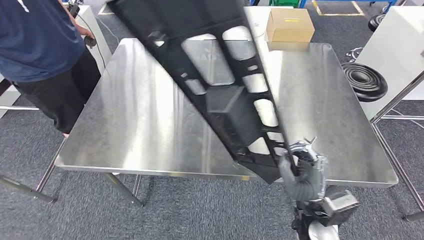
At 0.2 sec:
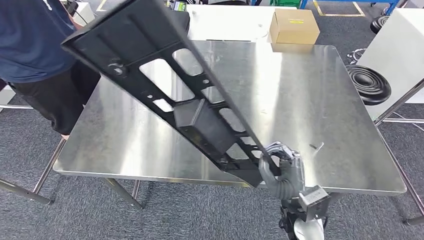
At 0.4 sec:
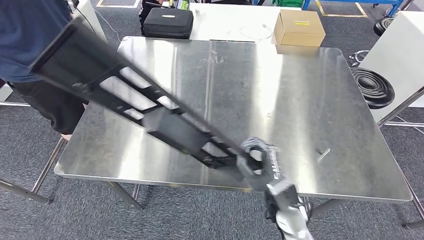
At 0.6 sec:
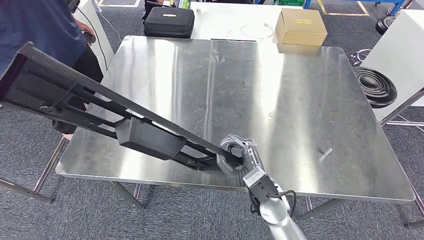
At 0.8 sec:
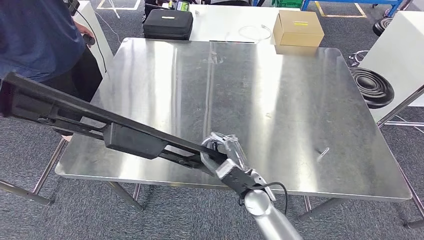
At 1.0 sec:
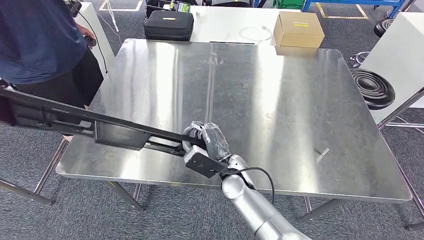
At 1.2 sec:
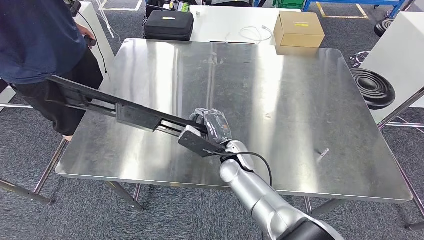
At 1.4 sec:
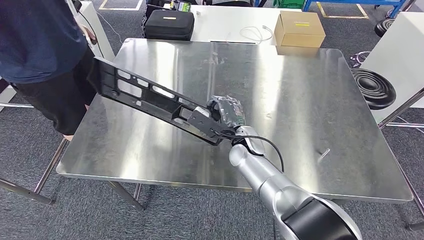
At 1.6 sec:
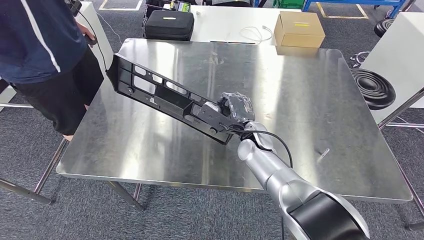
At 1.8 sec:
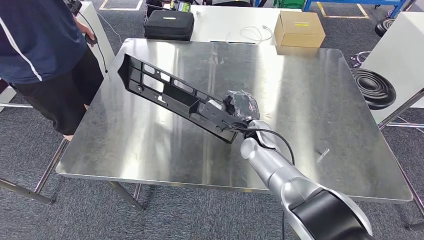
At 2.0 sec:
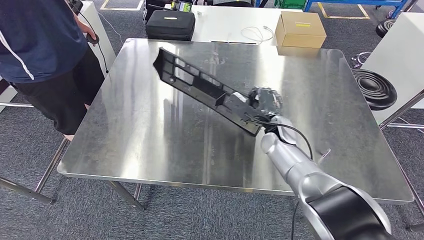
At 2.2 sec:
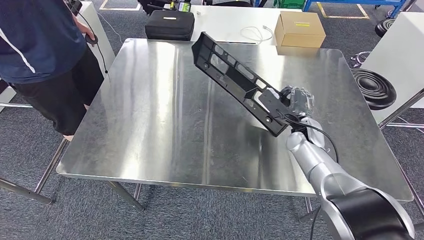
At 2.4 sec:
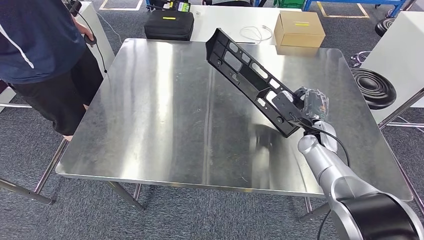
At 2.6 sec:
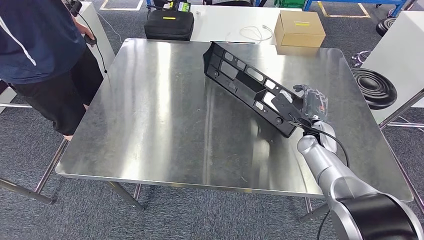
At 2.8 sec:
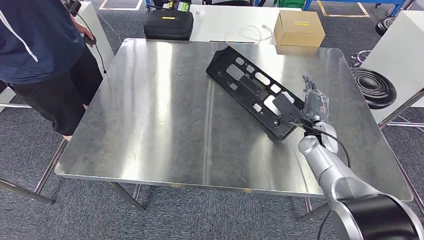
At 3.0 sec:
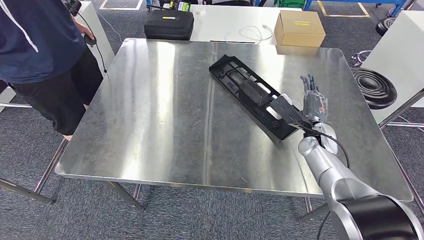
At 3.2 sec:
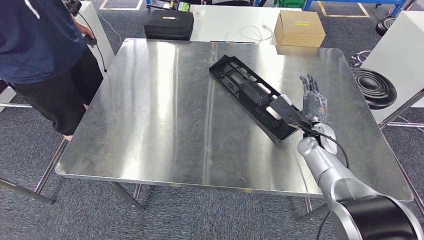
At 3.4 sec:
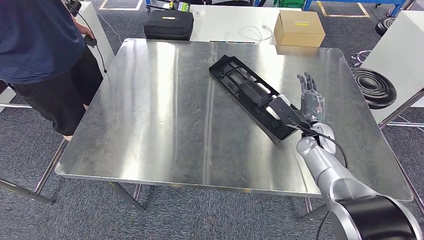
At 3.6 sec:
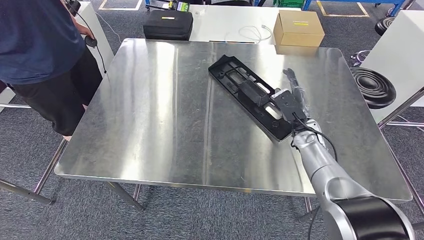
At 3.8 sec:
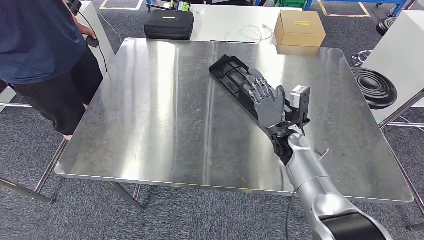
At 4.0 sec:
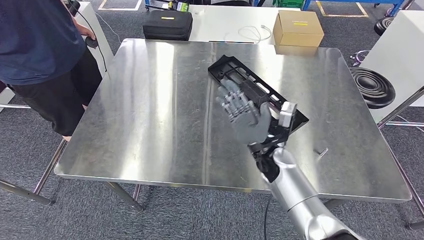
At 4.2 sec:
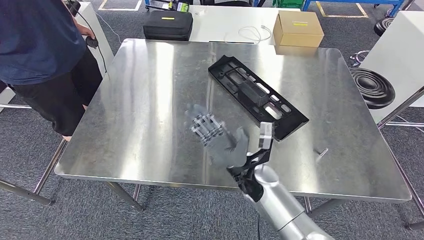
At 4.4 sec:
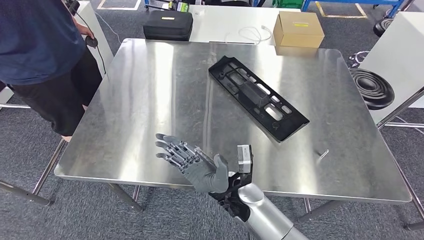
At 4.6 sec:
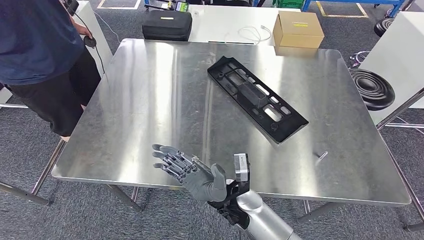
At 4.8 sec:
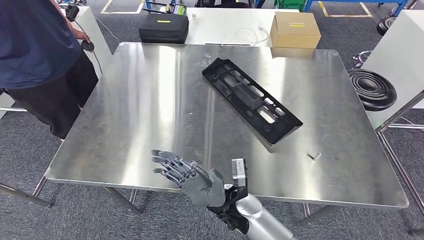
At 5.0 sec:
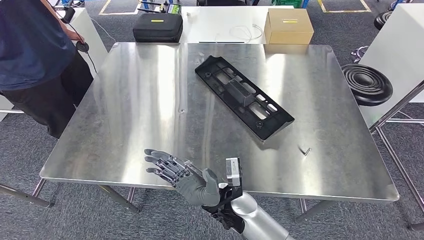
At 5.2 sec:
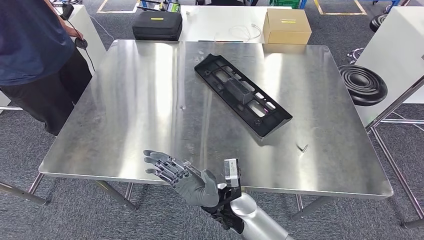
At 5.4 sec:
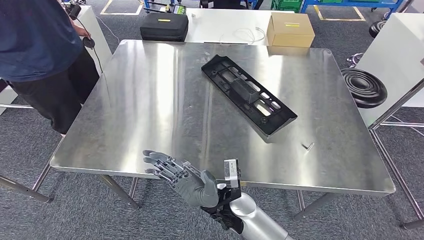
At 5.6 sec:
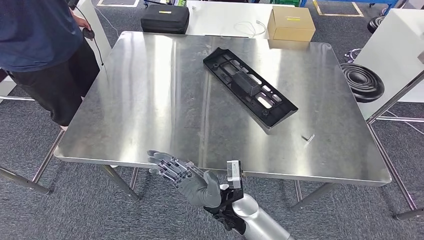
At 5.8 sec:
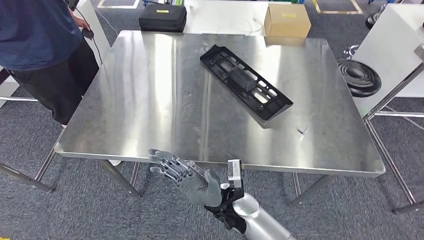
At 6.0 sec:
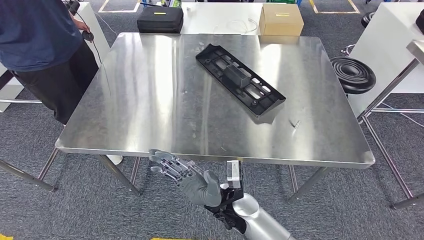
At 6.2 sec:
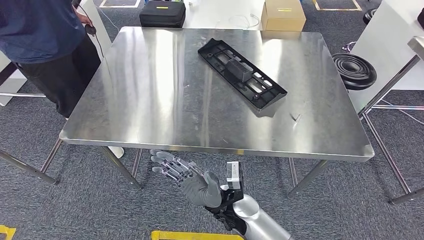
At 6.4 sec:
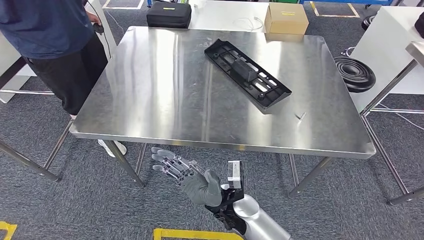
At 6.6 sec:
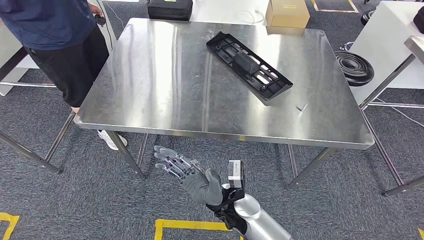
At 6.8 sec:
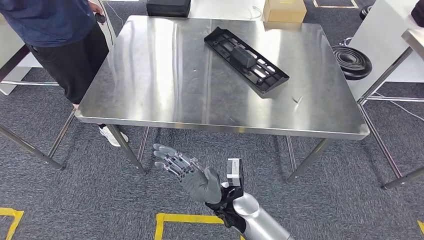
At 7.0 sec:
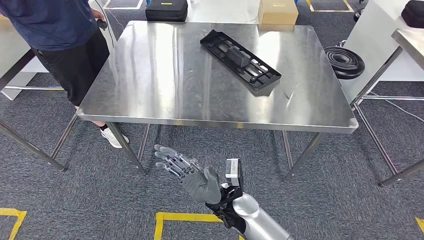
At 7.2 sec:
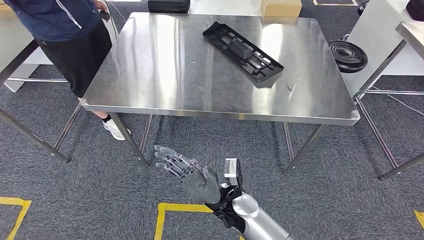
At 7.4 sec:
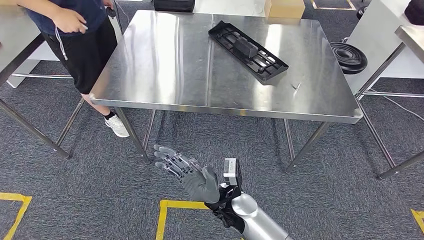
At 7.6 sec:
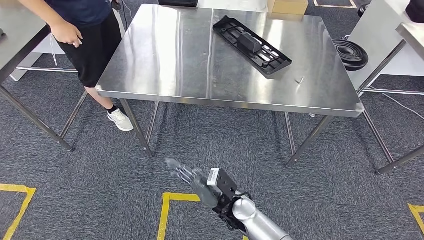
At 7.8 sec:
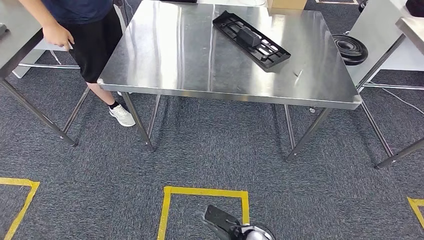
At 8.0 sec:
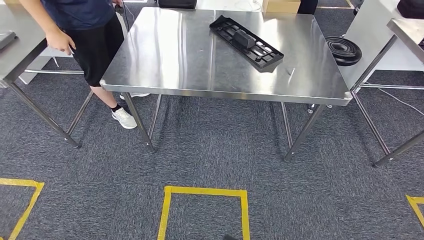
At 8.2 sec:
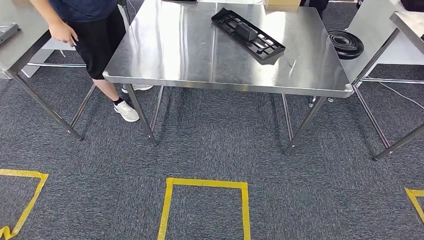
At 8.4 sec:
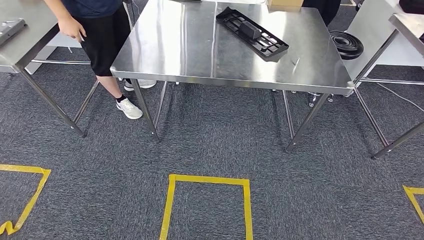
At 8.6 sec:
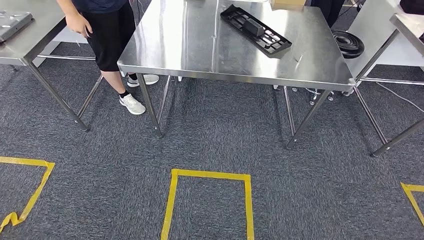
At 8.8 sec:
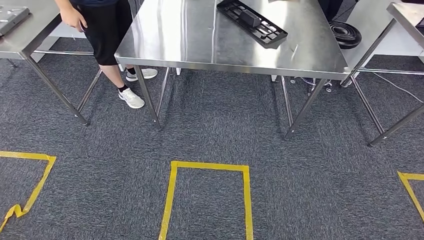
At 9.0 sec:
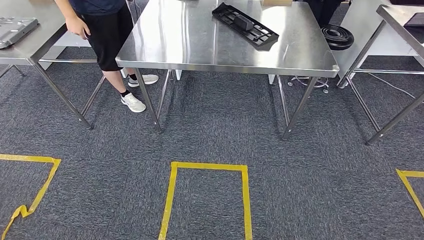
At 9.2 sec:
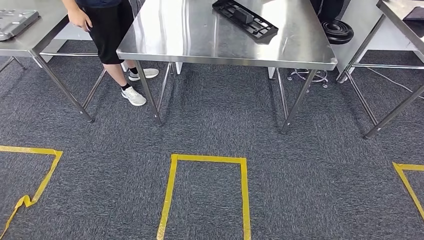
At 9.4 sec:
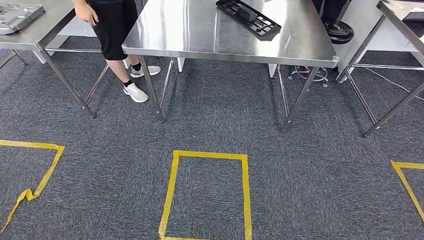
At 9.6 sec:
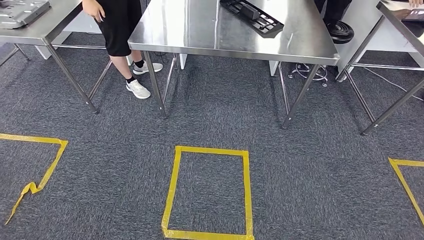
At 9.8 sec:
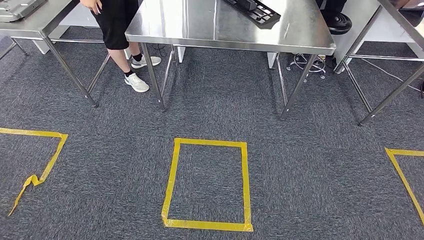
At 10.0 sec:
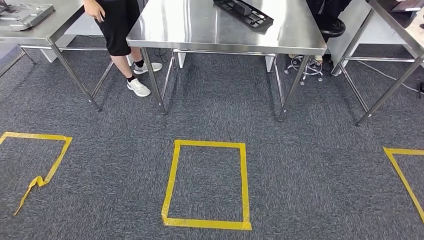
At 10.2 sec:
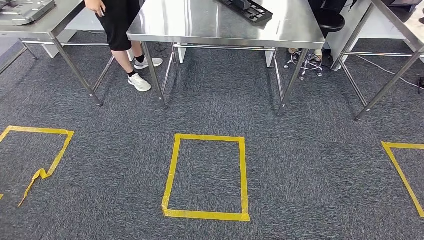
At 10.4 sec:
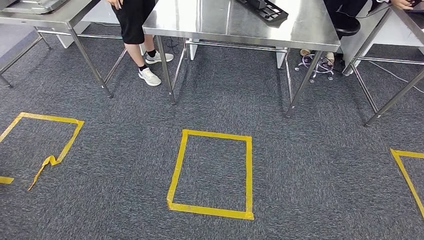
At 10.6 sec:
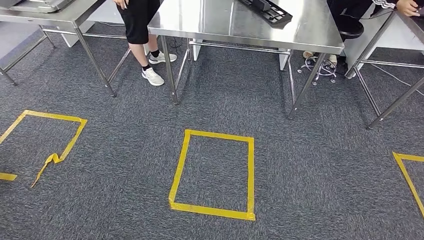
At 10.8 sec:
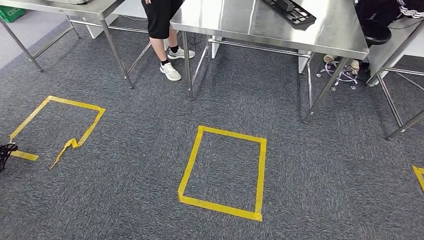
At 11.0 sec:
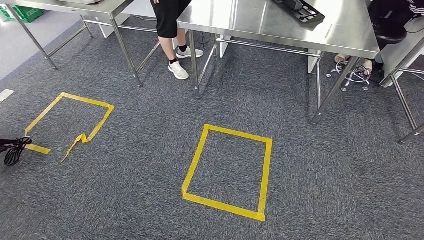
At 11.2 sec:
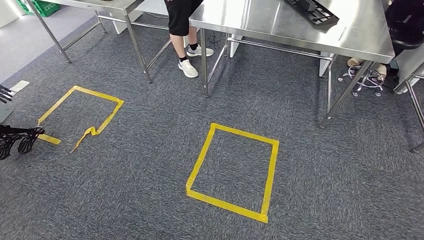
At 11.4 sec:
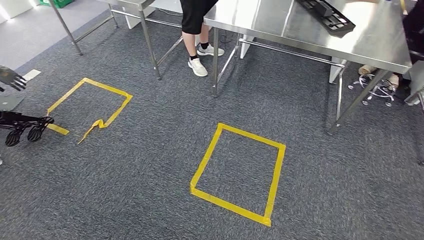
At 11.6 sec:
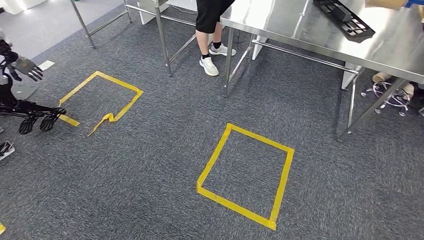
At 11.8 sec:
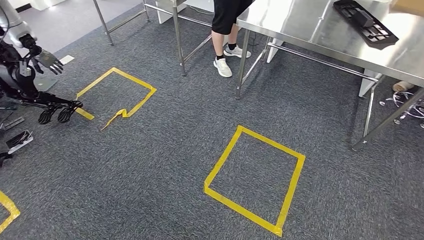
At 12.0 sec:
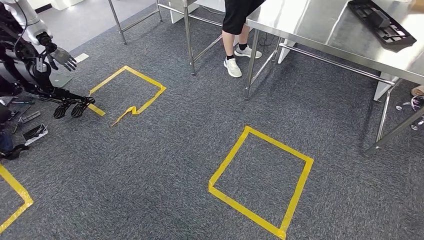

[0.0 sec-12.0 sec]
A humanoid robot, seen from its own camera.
Step, 0.0 sec to 8.6 sec: Insert the large material into the corresponding slot on the workbench.
3.0 sec to 4.4 sec: The right hand goes approximately 30 cm to the left and backward.

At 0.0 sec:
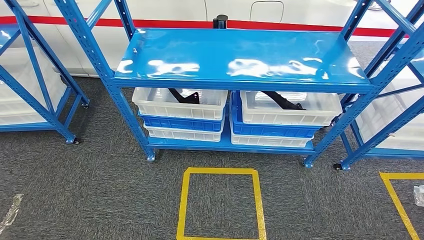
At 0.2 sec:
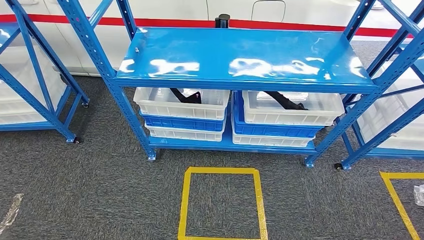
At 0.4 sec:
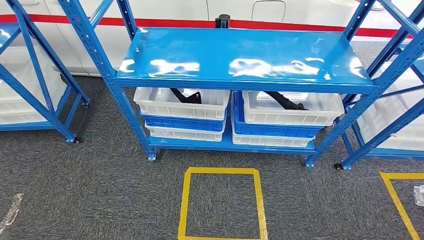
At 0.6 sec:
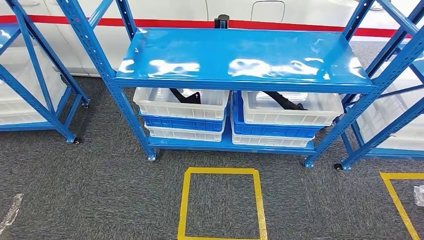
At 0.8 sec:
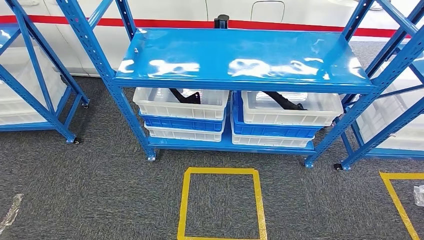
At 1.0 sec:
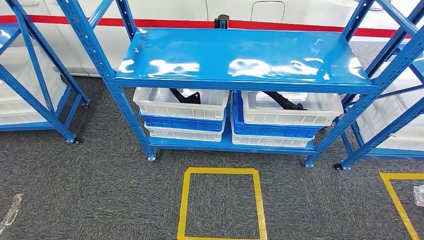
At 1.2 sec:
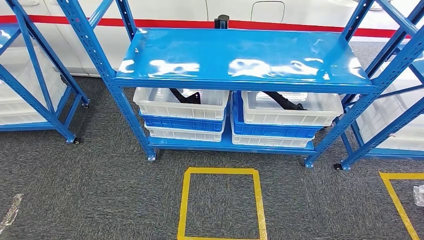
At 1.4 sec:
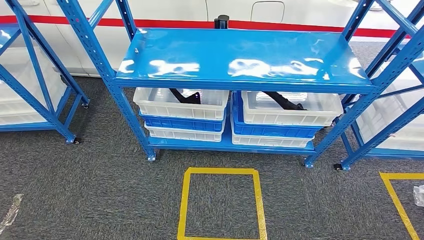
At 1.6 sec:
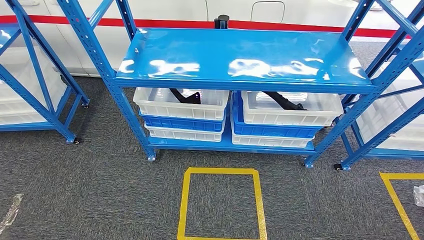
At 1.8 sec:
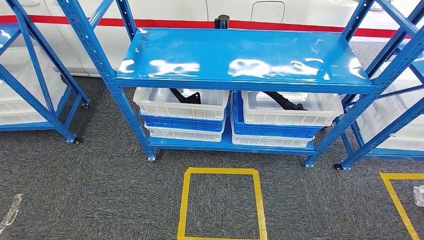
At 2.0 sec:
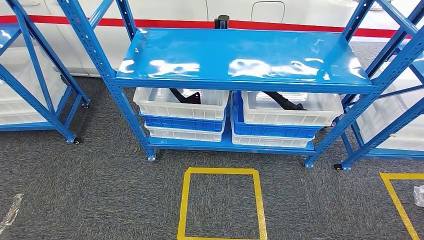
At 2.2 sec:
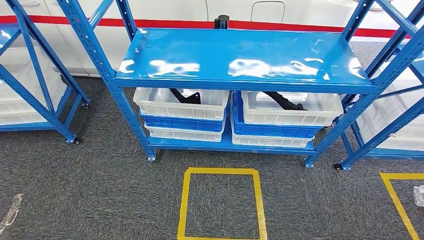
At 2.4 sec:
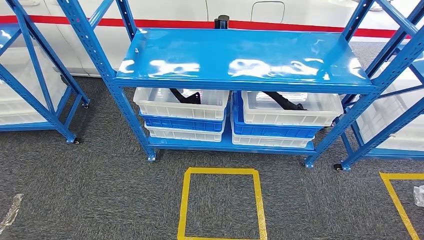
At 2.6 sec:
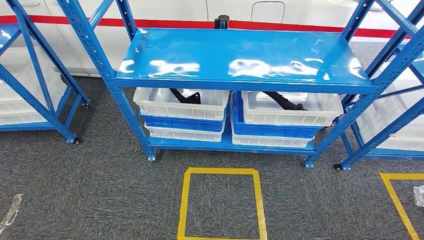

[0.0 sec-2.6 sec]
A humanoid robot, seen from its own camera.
Step, 0.0 sec to 2.6 sec: Move to the initial position of the shelf.
0.0 sec to 1.2 sec: The hands make only small movements.
